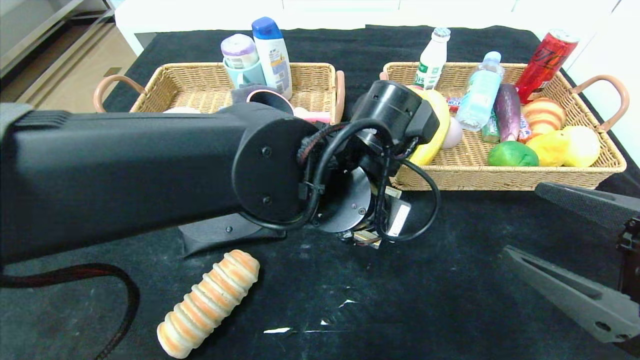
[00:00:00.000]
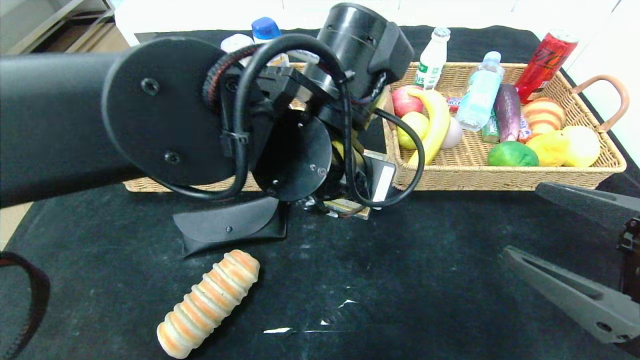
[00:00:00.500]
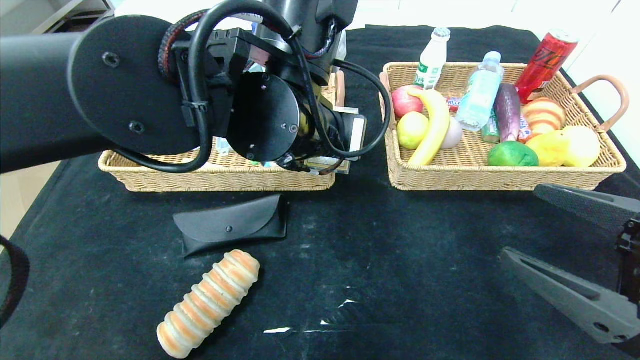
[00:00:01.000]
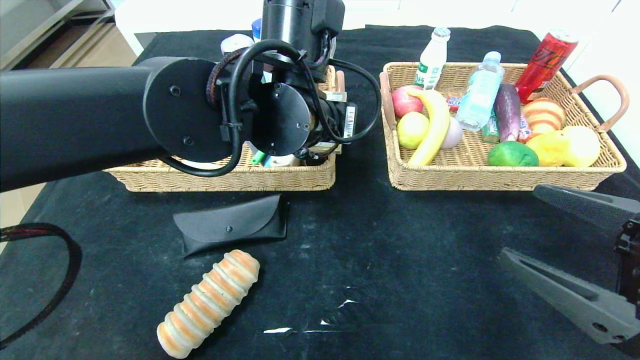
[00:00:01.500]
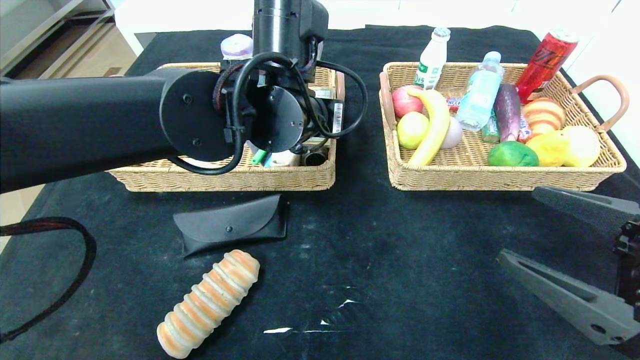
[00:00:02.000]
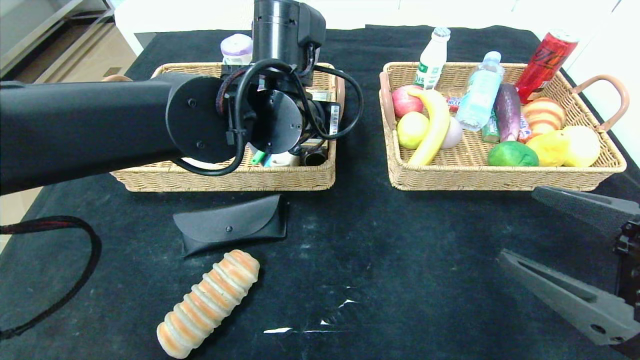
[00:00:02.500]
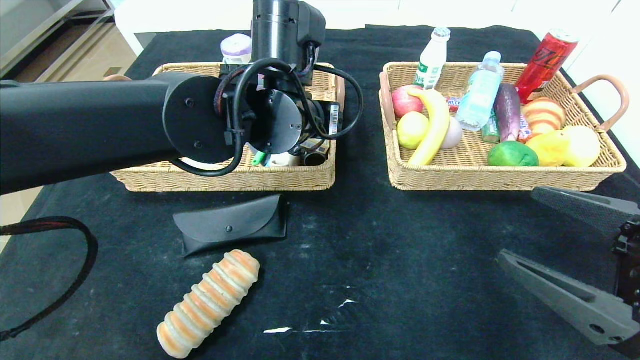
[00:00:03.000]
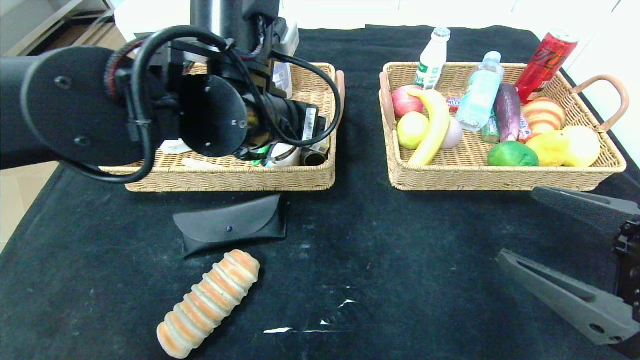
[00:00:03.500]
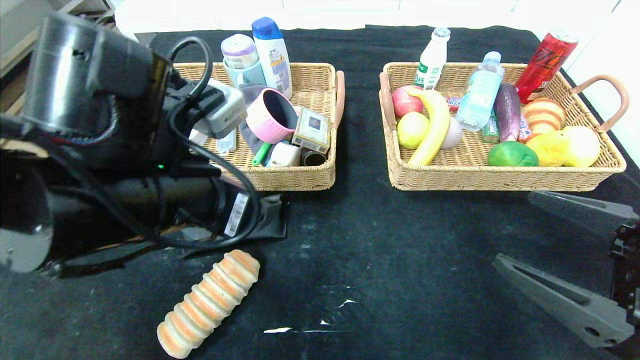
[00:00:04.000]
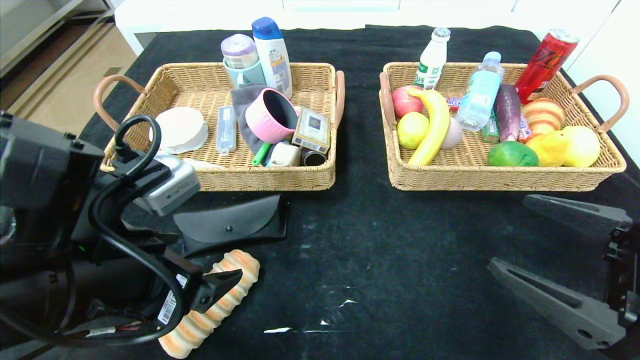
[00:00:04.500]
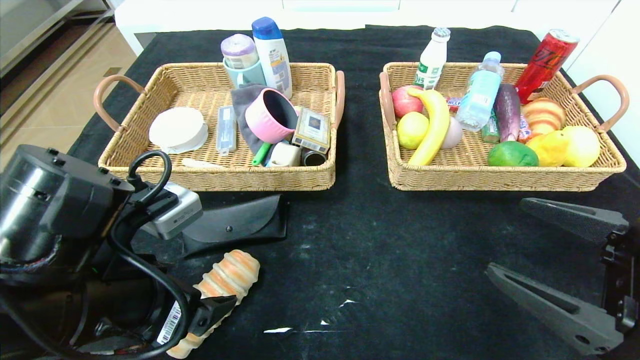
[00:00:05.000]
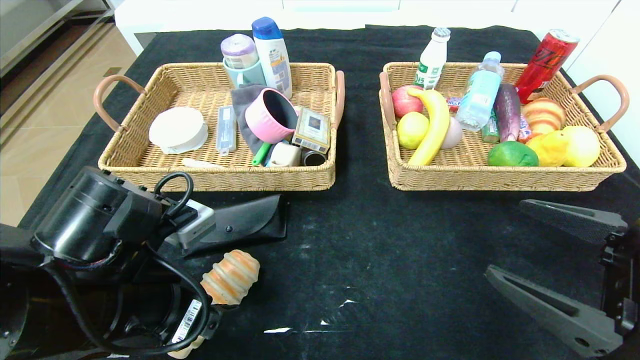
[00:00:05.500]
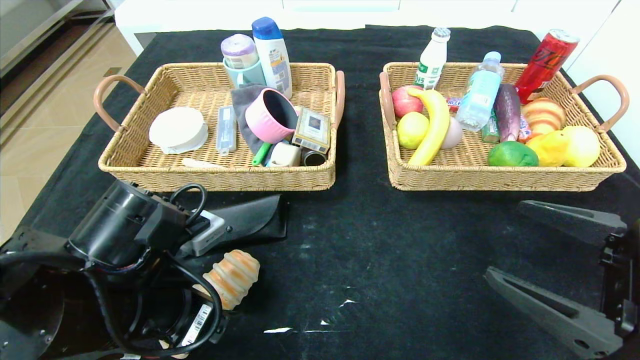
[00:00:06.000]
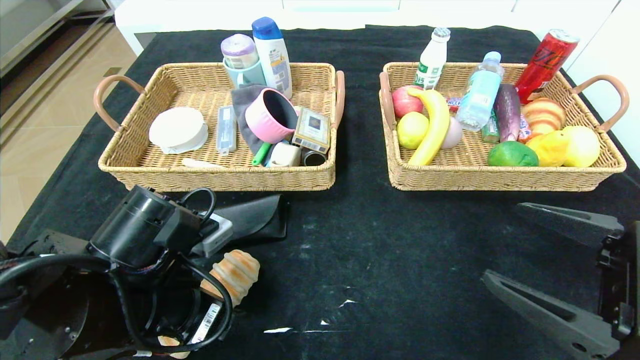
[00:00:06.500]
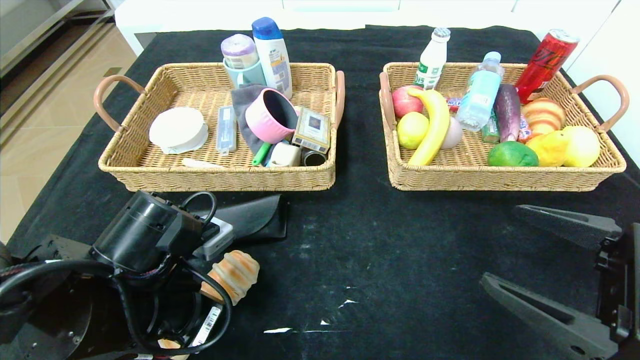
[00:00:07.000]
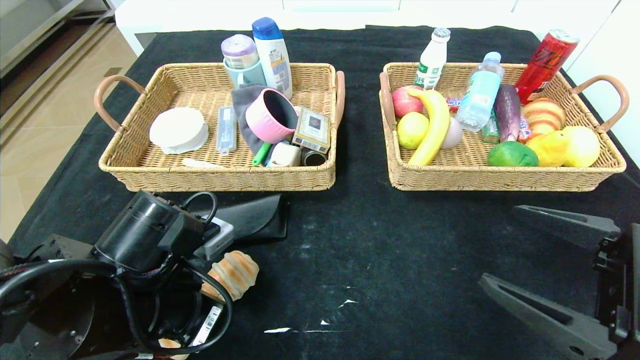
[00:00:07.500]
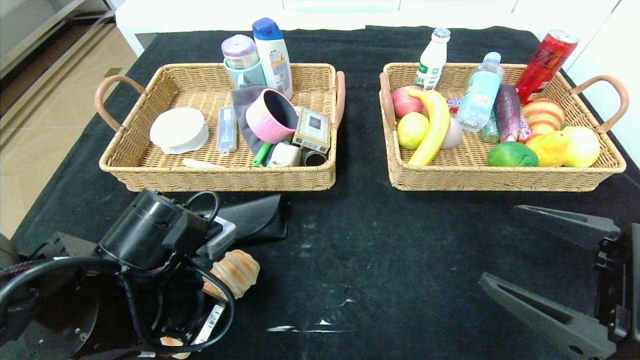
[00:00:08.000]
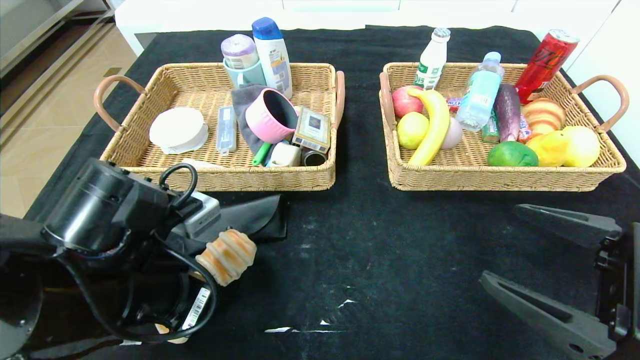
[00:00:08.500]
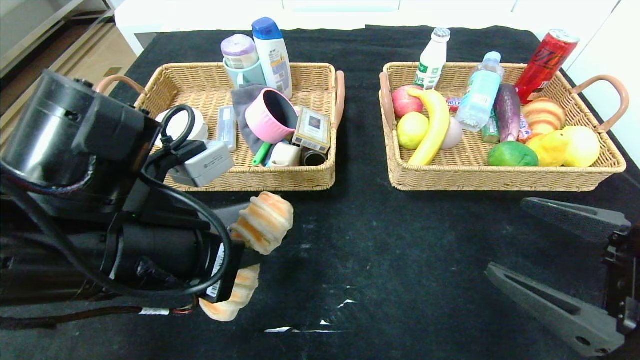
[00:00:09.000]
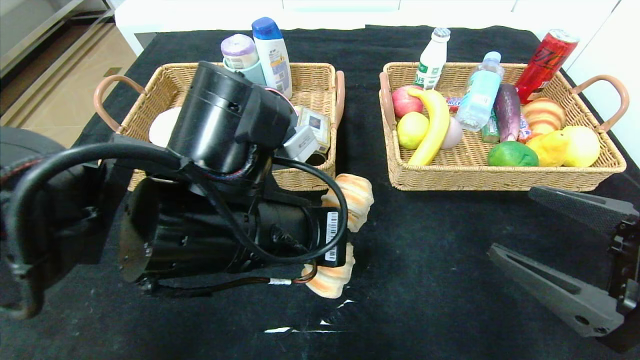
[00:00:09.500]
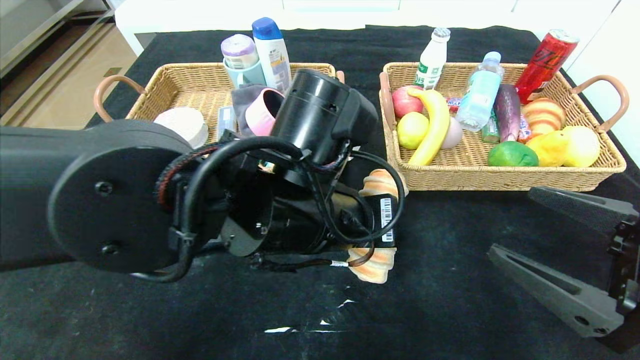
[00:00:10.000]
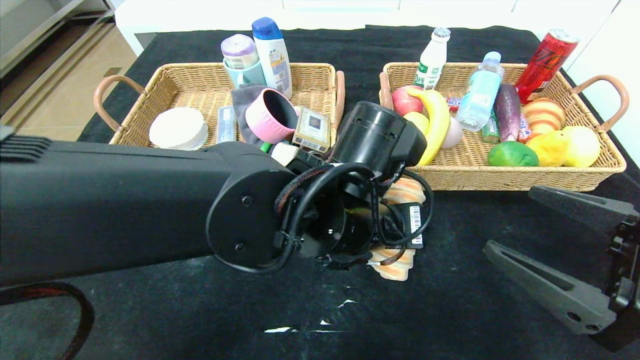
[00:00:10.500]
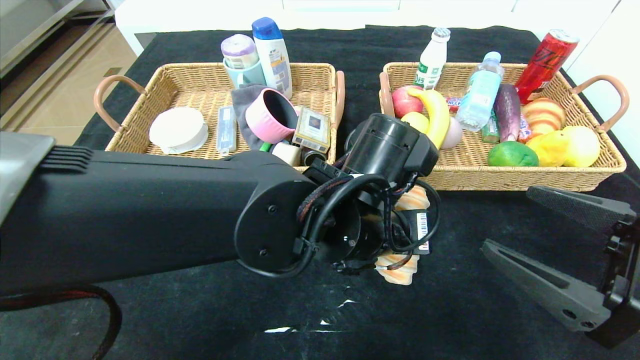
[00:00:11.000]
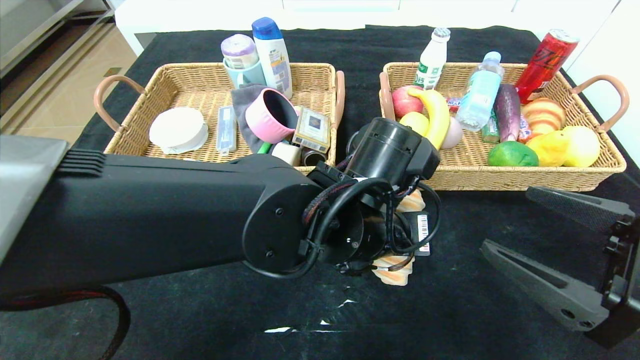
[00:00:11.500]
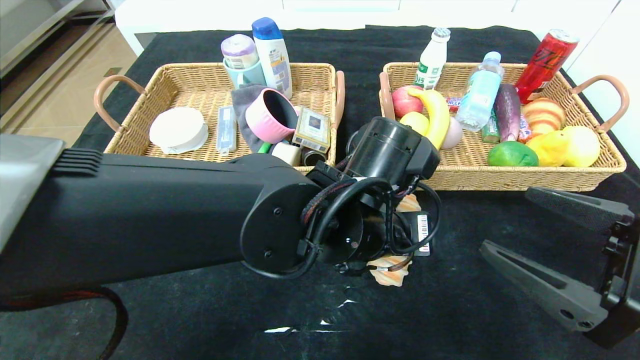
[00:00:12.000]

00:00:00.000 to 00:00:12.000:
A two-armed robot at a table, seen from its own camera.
Step, 00:00:00.000 to 00:00:04.000: Pick up the playing cards and put it in the left basket.
00:00:00.000 to 00:00:02.000: The left gripper moves forward, to the left and upward, roughly 10 cm.
00:00:02.000 to 00:00:04.000: The left gripper is displaced backward and to the left by roughly 15 cm, and opens.
00:00:04.000 to 00:00:06.000: The left gripper travels downward by about 10 cm.
00:00:06.000 to 00:00:08.000: The left gripper closes up.
00:00:08.000 to 00:00:10.000: The left gripper goes approximately 15 cm to the right and upward.
00:00:10.000 to 00:00:12.000: The left gripper ends up roughly 5 cm from where it was, and opens up.

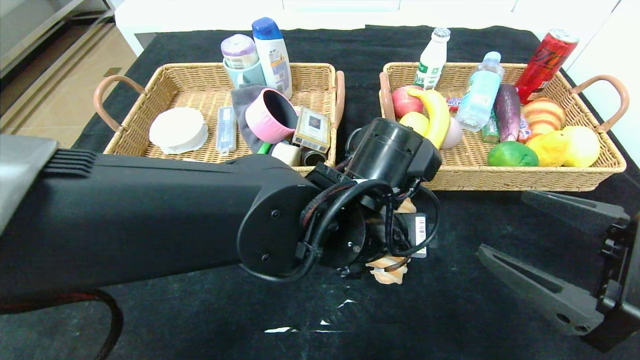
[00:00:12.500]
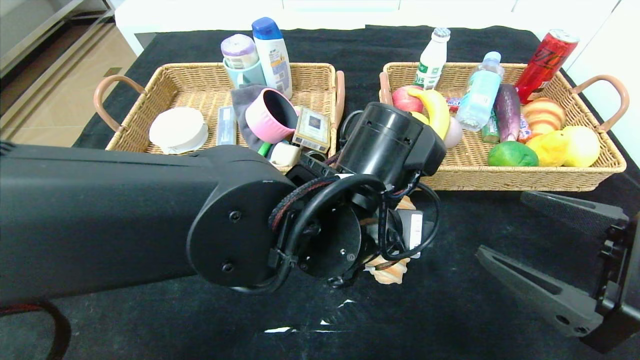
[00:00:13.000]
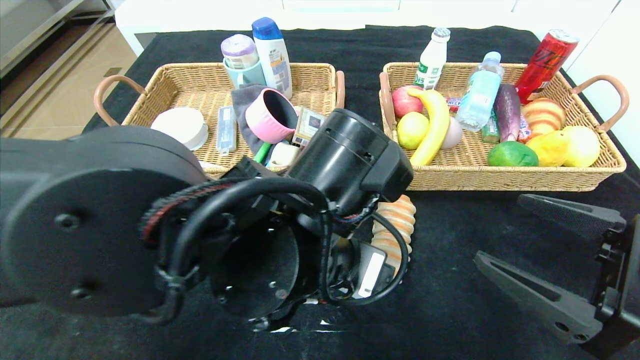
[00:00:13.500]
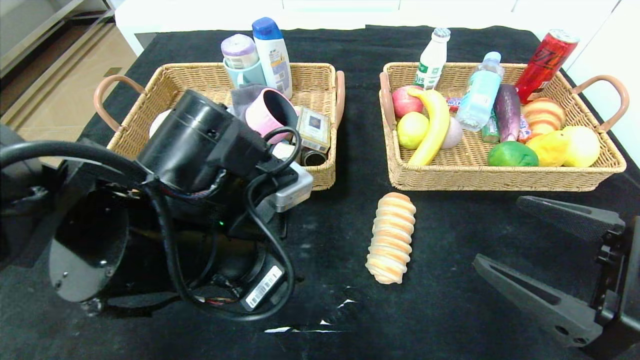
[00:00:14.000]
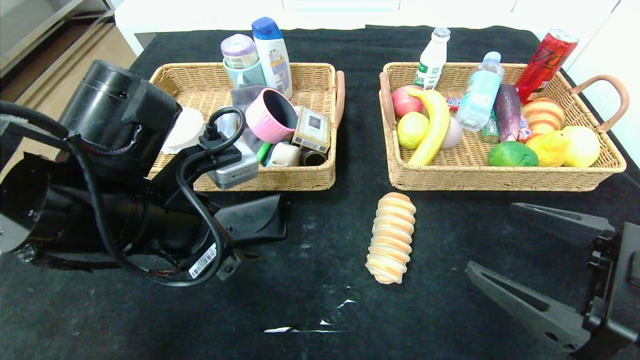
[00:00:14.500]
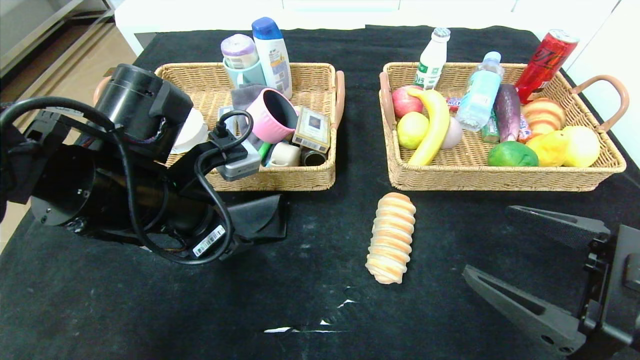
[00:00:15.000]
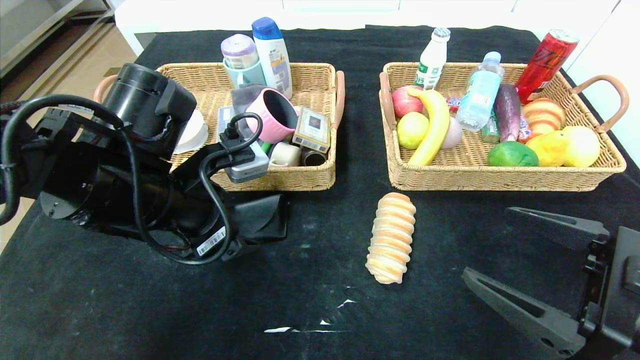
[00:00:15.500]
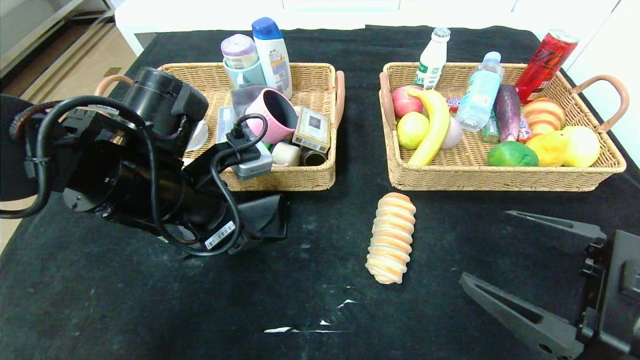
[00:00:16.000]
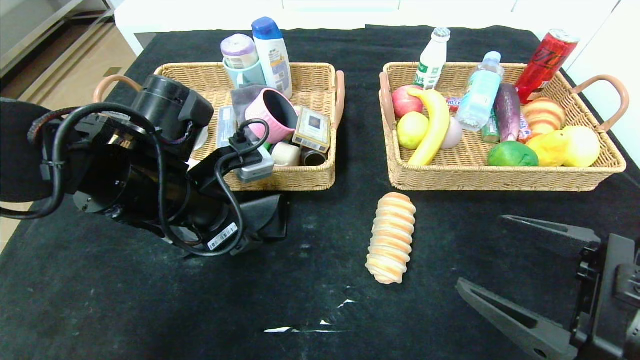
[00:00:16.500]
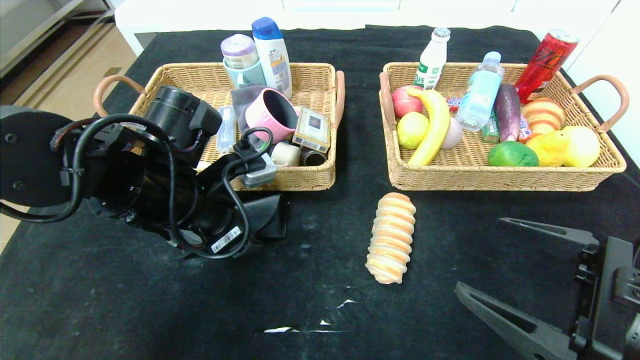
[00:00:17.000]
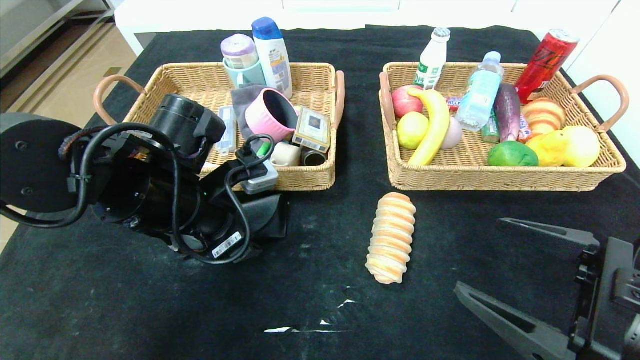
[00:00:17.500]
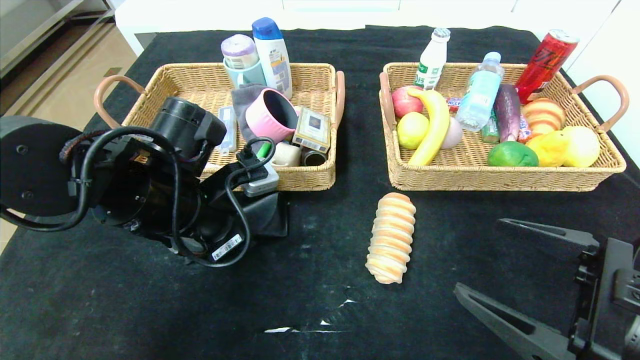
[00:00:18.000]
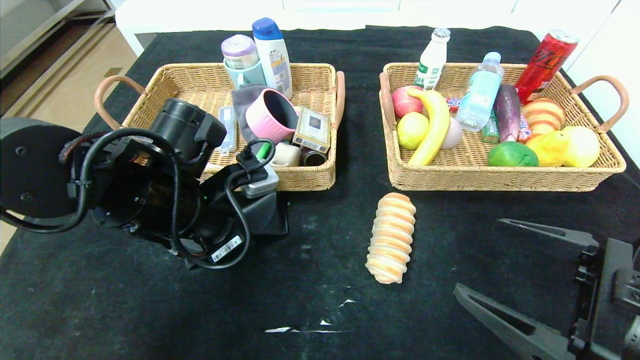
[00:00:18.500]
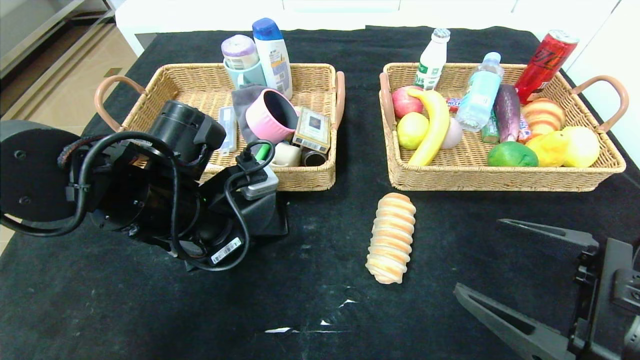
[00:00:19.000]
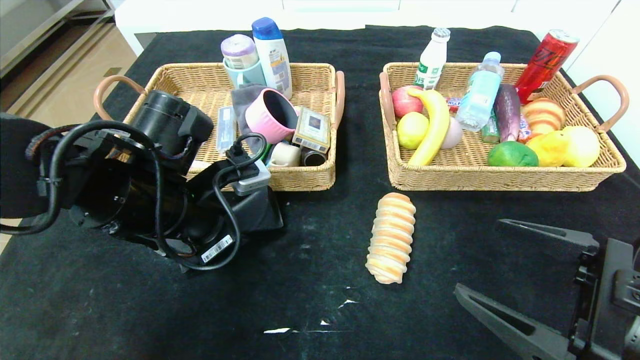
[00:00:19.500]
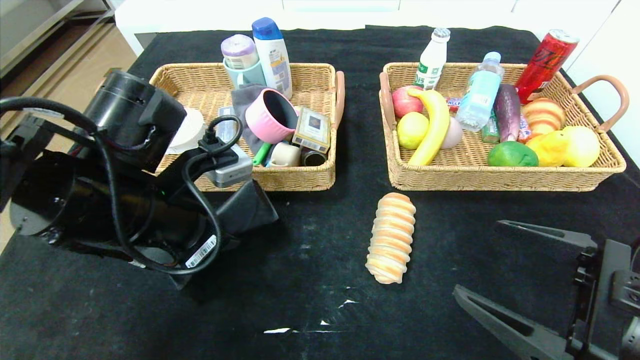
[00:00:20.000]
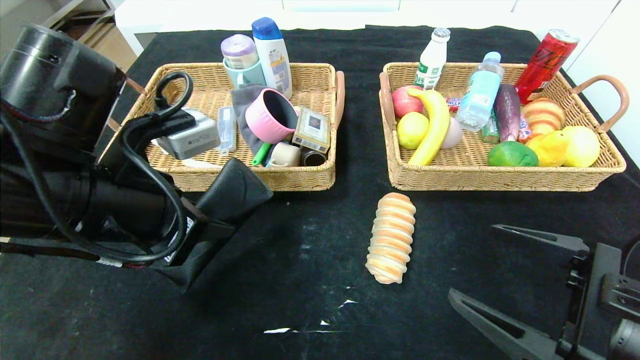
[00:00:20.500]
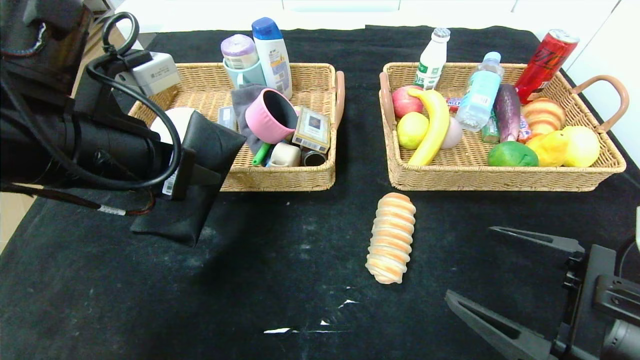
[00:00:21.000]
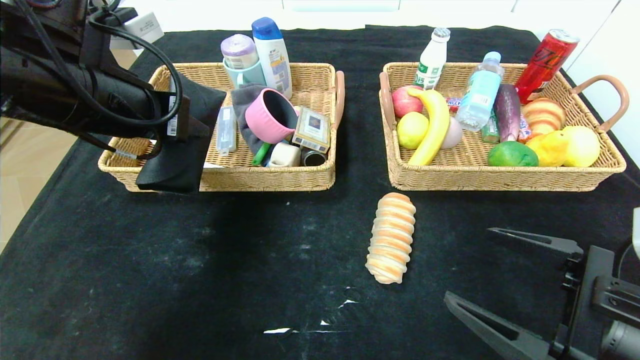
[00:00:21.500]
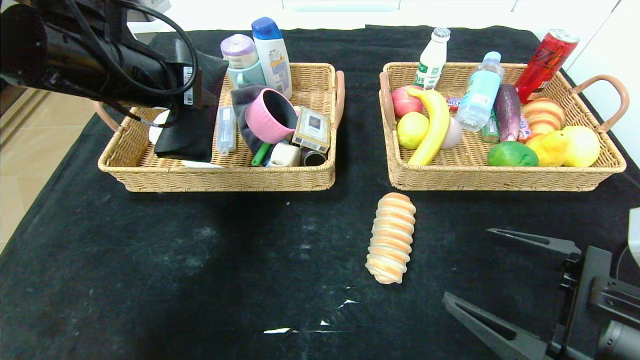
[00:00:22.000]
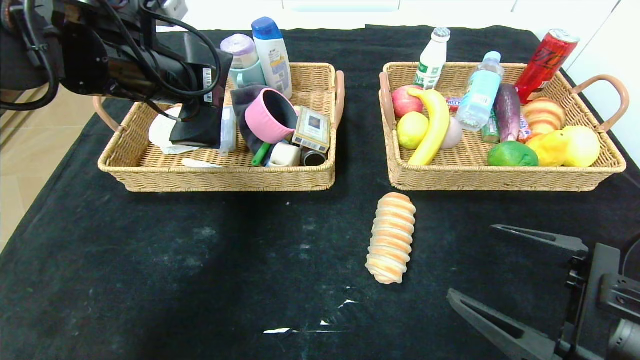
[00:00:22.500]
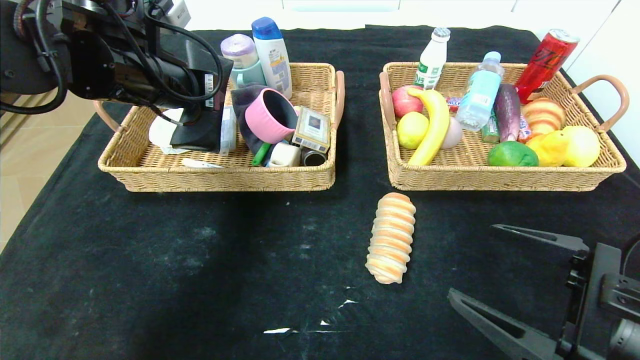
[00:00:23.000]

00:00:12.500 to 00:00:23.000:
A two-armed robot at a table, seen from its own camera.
00:00:12.500 to 00:00:14.500: The left gripper shifts some 20 cm to the left.
00:00:14.500 to 00:00:16.500: The left gripper moves forward, about 5 cm.
00:00:16.500 to 00:00:19.000: The left gripper closes up.
00:00:19.000 to 00:00:21.000: The left gripper moves upward, about 10 cm.
00:00:21.000 to 00:00:23.000: The left gripper travels forward by some 10 cm.
